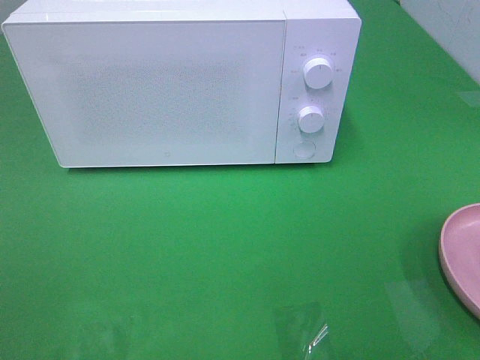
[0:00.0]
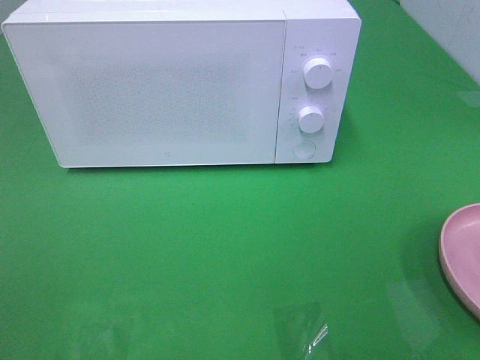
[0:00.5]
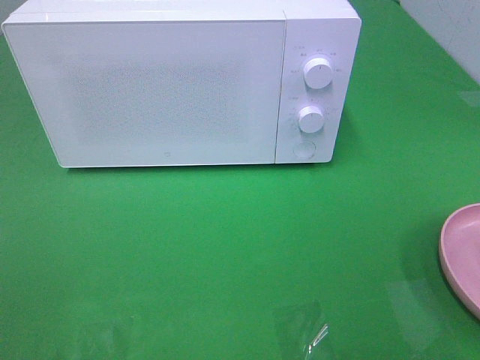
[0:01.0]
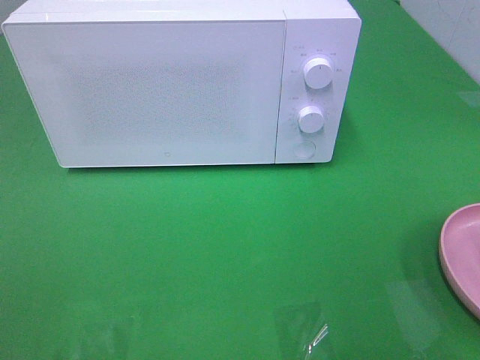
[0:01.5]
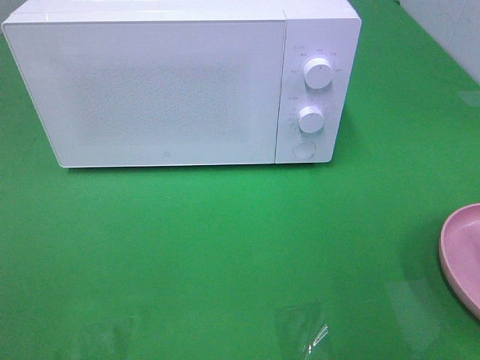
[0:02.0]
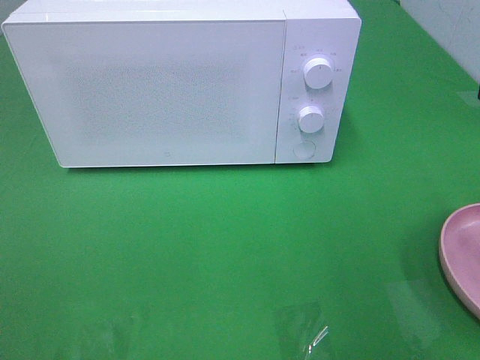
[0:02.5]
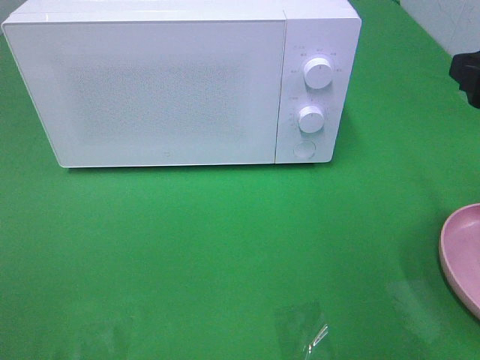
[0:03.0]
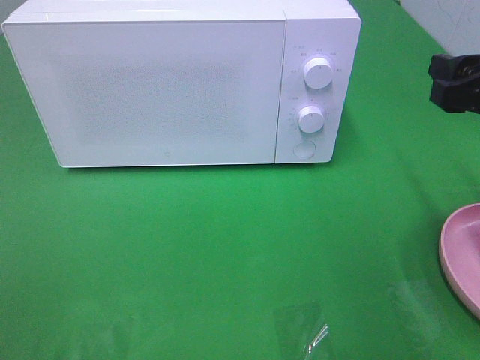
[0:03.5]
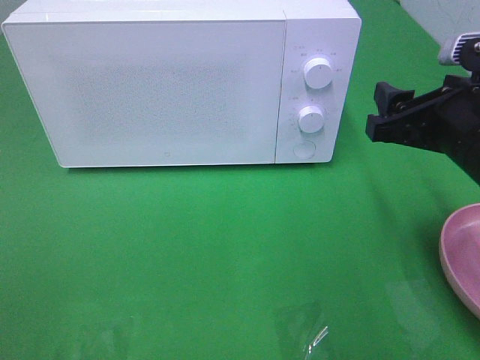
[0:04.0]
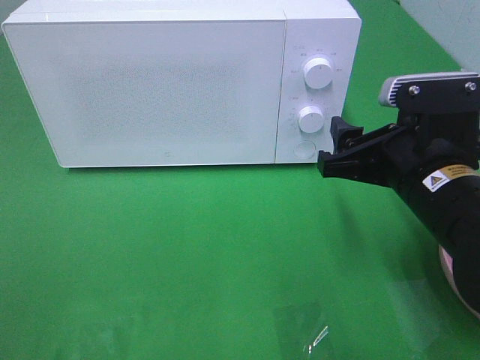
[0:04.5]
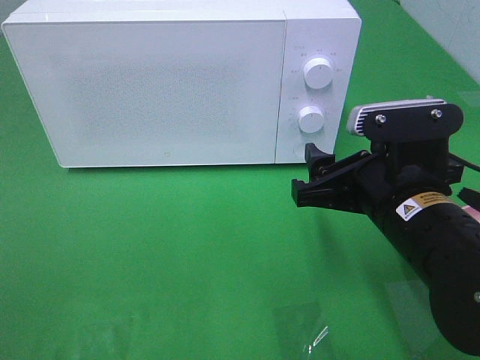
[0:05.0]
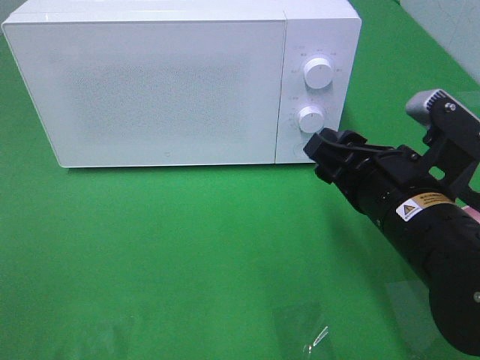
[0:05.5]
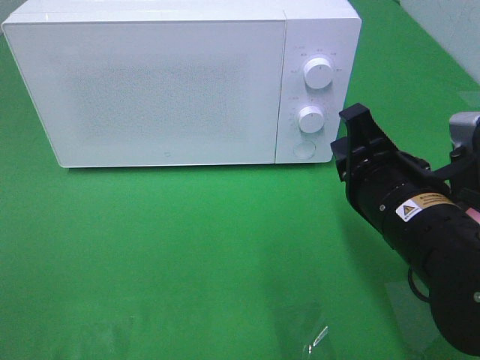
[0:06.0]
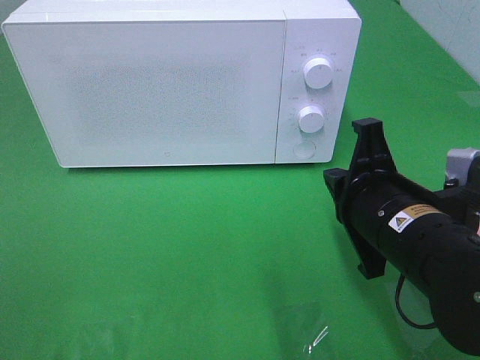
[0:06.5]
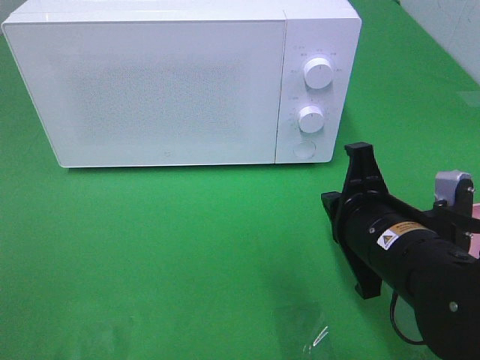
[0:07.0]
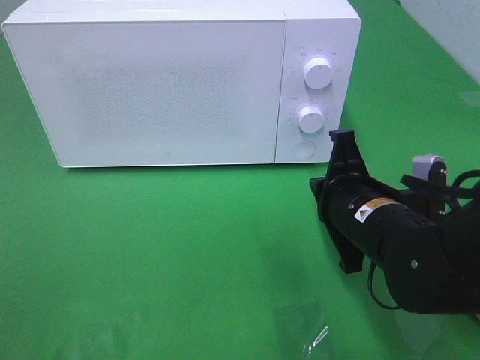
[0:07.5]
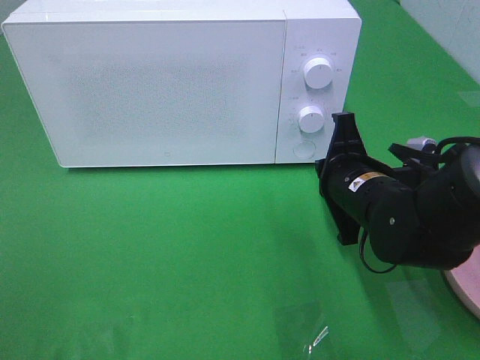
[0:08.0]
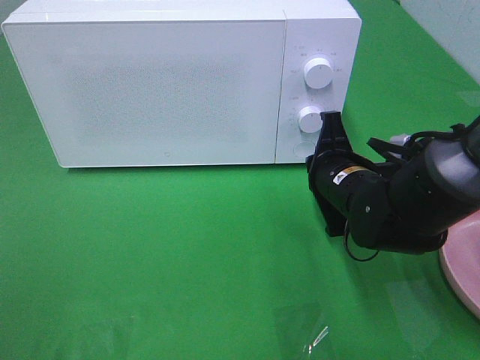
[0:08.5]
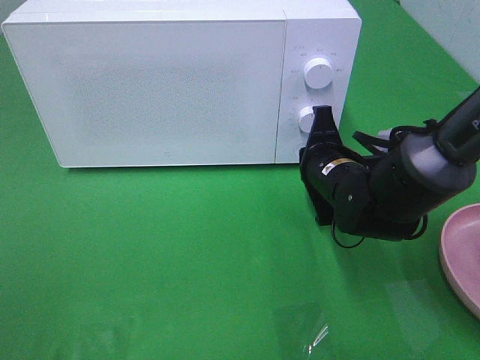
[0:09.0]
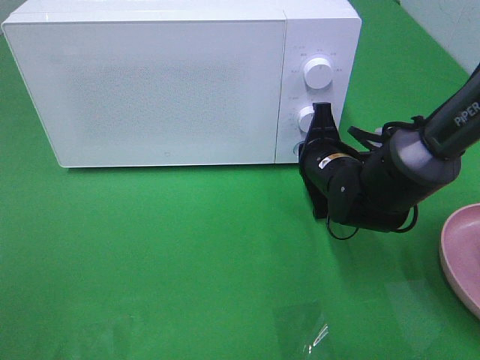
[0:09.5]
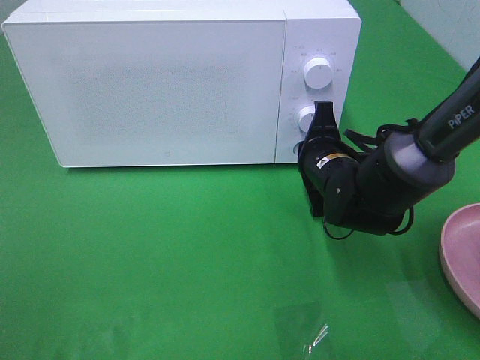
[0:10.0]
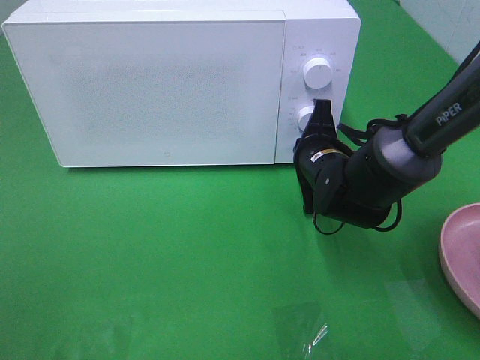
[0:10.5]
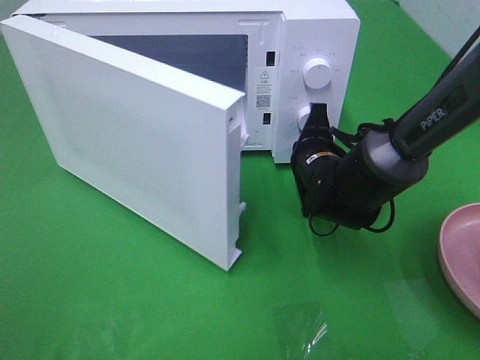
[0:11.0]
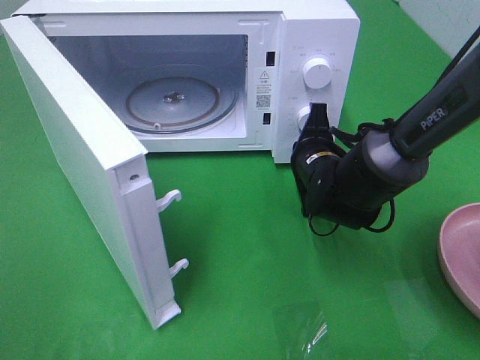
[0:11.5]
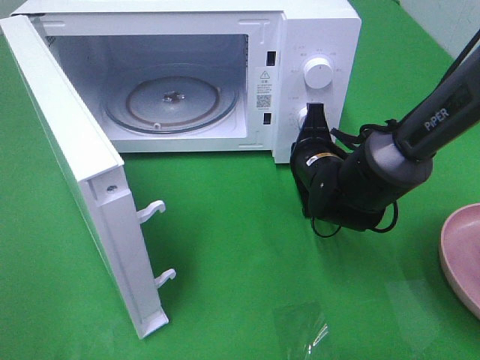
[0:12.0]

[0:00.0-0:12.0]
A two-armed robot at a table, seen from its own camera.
Task of the whole recording: Heat the burger.
0:02.0 to 0:04.0: The right gripper moves forward, downward and to the left, roughly 15 cm.
0:04.0 to 0:06.0: The right gripper goes about 5 cm to the left, and closes.
0:06.0 to 0:08.0: The right gripper heads forward and downward, covering approximately 10 cm.
0:08.0 to 0:10.0: The right gripper is displaced forward by roughly 5 cm.

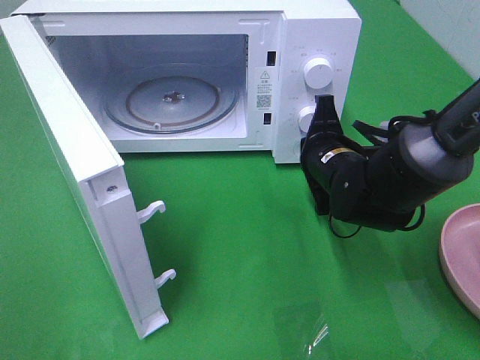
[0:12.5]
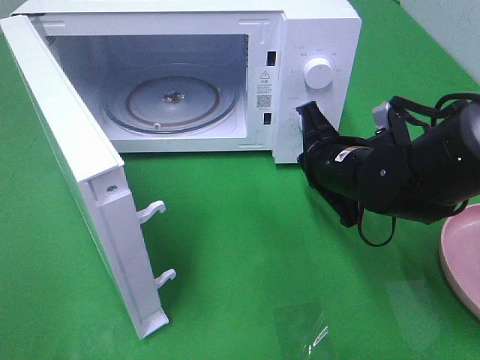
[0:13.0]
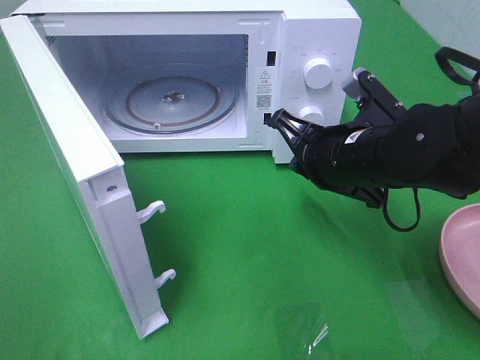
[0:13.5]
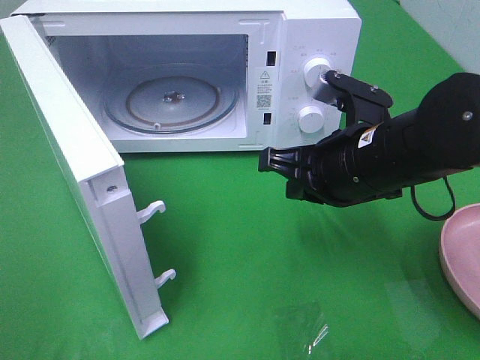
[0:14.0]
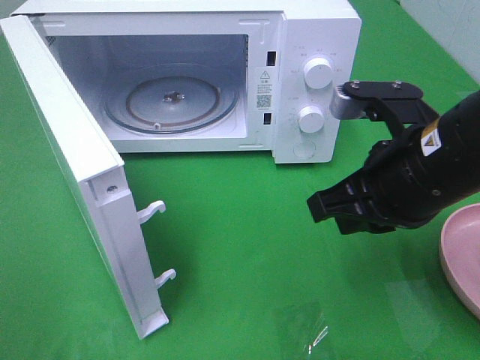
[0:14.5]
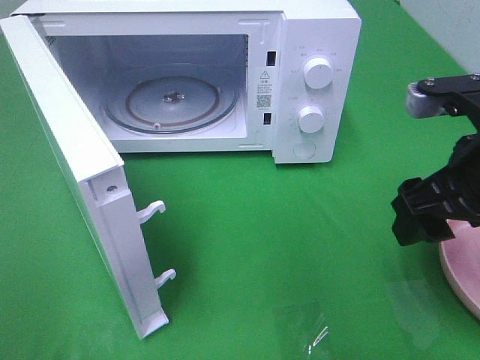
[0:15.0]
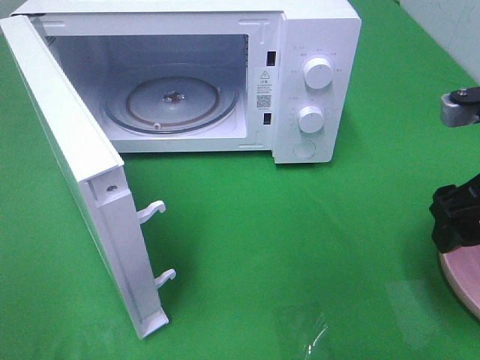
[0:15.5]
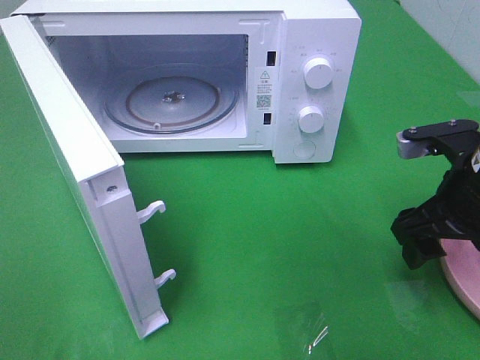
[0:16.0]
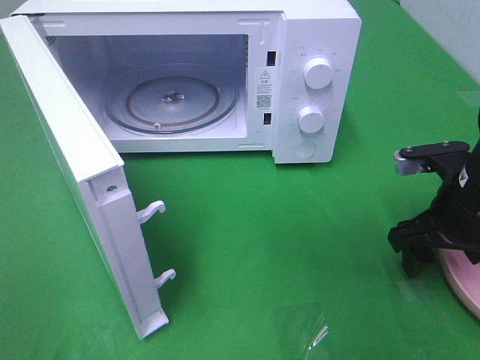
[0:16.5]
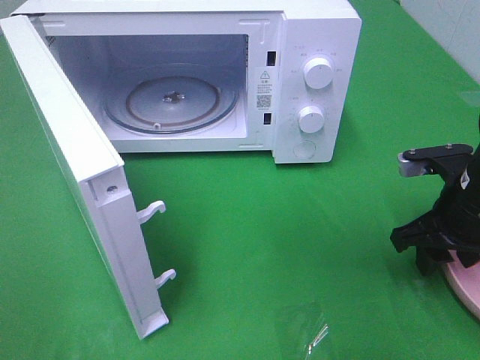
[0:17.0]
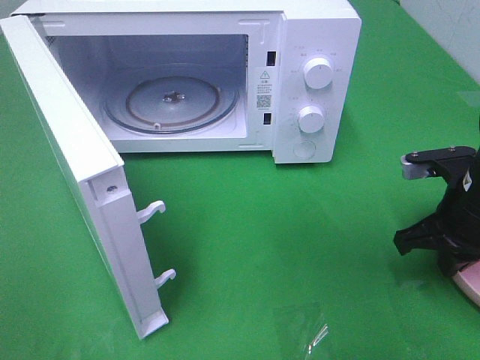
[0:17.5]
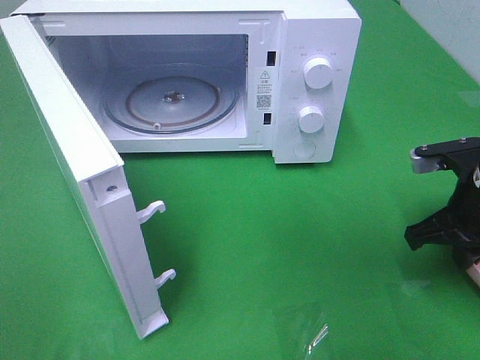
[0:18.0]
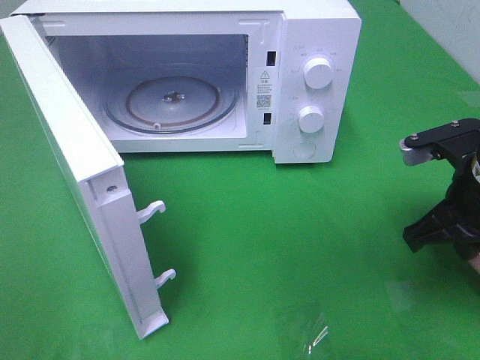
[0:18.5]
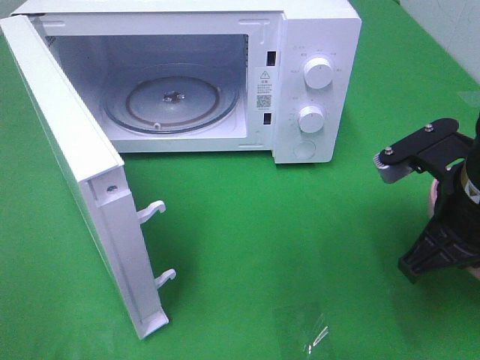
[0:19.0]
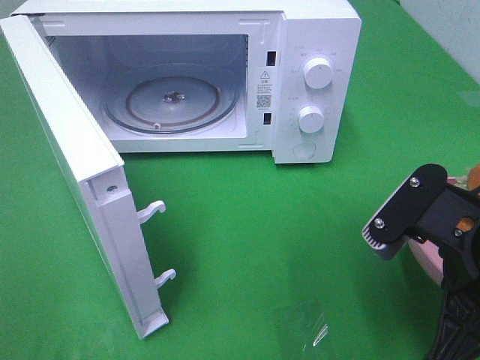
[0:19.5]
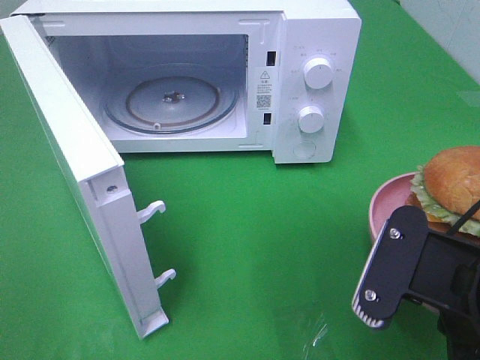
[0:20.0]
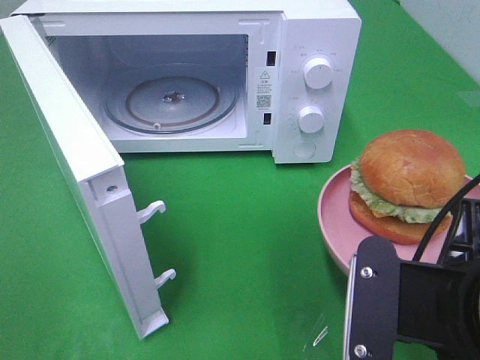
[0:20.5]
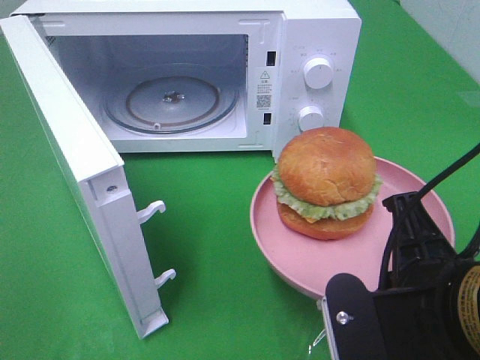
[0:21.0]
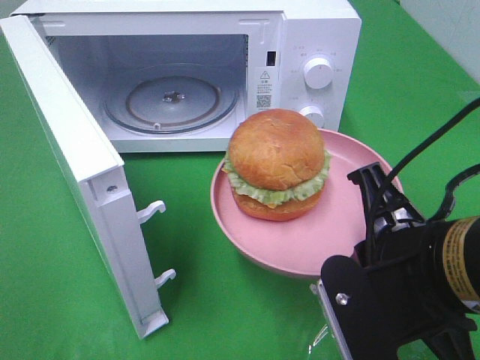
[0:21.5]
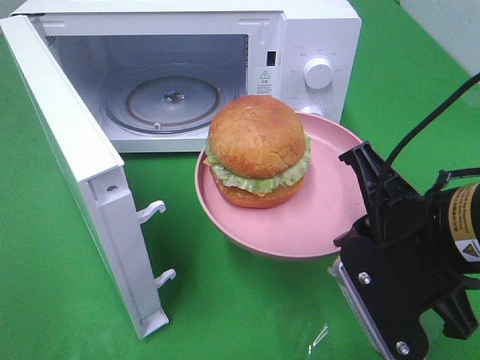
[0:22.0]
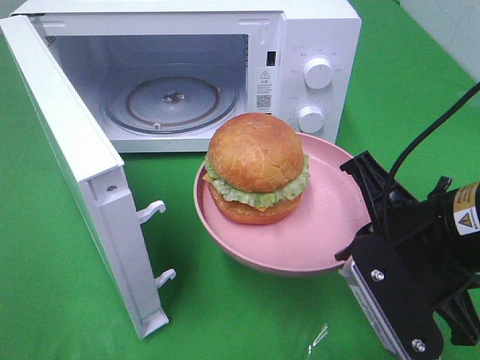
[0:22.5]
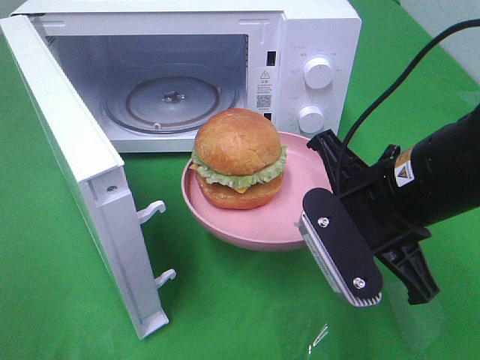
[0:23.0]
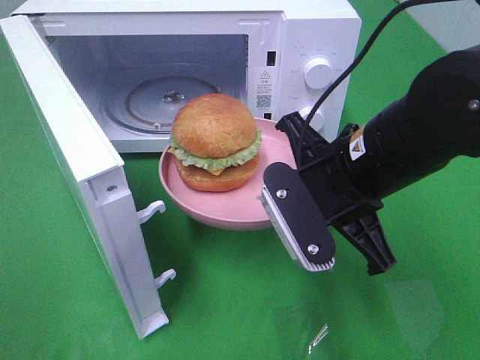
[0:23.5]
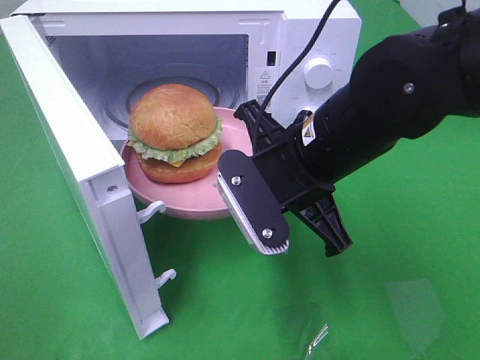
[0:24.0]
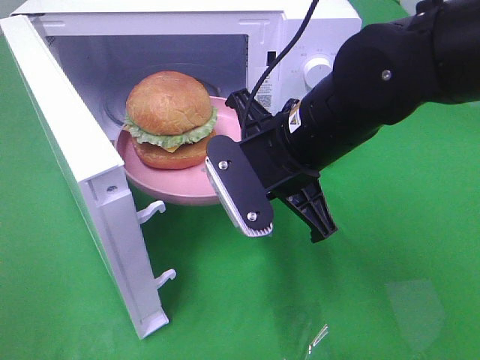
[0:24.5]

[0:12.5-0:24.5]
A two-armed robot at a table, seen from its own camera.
Task of the whole recording: Heat the burger.
Step, 0:13.0 to 0:17.0: Right hand: grab the plate with the hamburger.
0:12.5 to 0:14.5: The right gripper moves upward and backward, approximately 15 cm.
0:14.5 to 0:16.5: The right gripper goes roughly 15 cm to the right and downward, and opens its fingers.
0:16.5 to 0:18.5: The right gripper closes up.
0:18.5 to 0:20.5: The right gripper heads backward and to the left, covering some 15 cm.
0:20.5 to 0:22.5: The right gripper is displaced forward by roughly 5 cm.
0:22.5 to 0:24.5: The right gripper heads to the left and forward, covering roughly 15 cm.

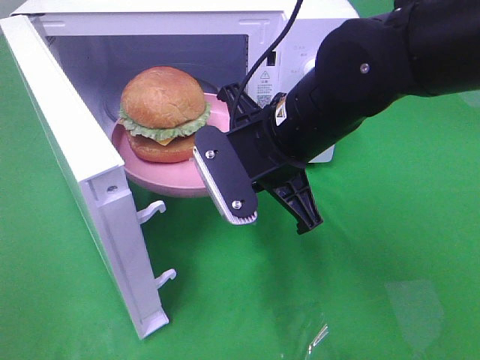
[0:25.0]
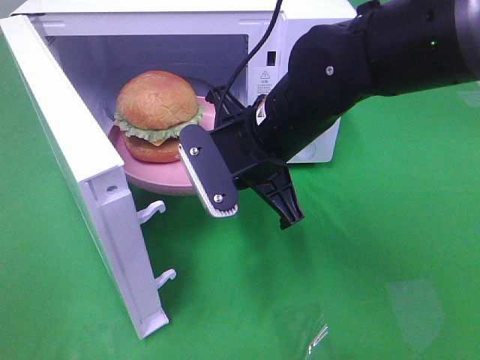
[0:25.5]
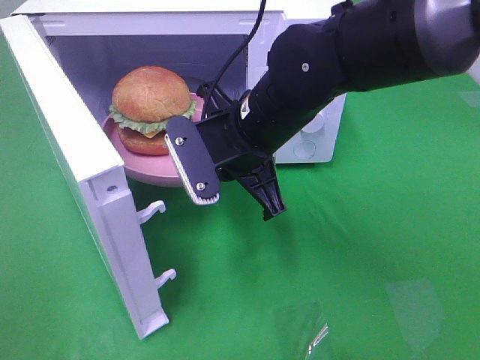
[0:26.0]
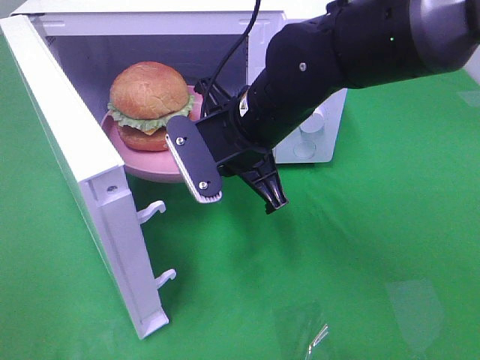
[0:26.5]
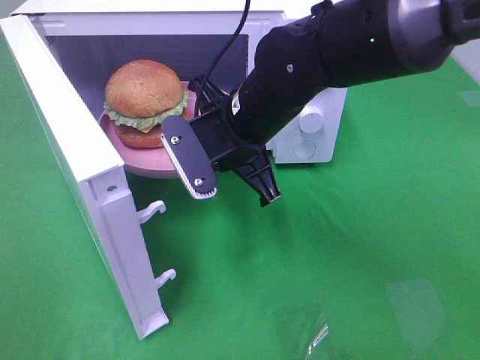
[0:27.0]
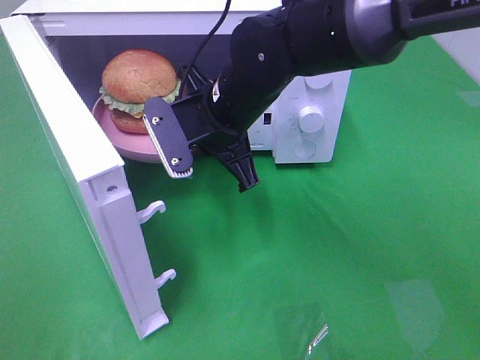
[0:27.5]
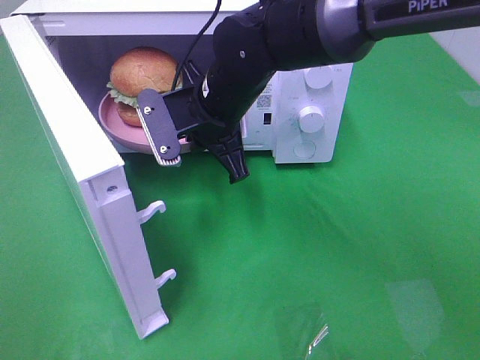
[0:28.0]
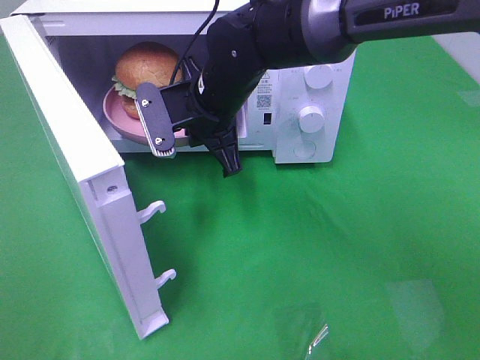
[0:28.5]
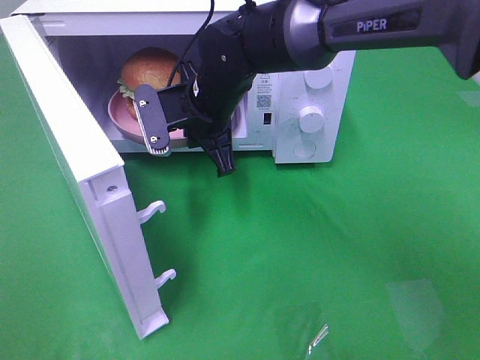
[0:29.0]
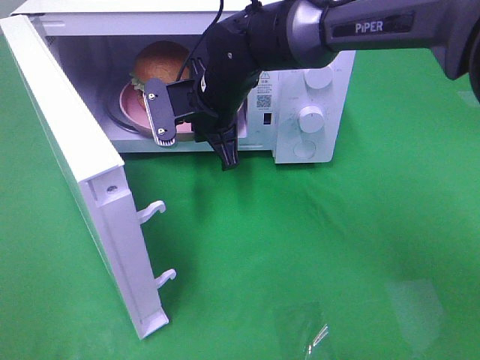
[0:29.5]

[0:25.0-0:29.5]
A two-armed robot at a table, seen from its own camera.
Task of the whole recording: Heat the burger.
0:25.0 to 0:27.0: The right gripper ends up some 5 cm from where it was.
0:27.0 to 0:29.5: The right gripper shifts about 10 cm forward.
